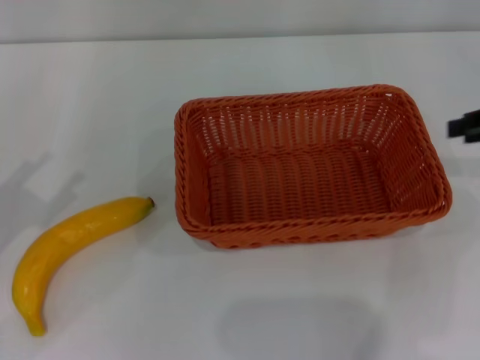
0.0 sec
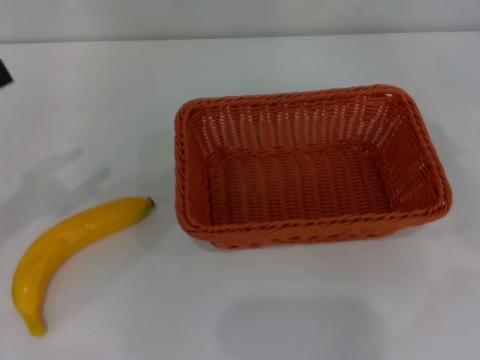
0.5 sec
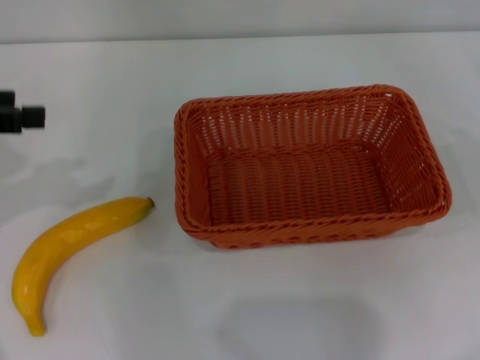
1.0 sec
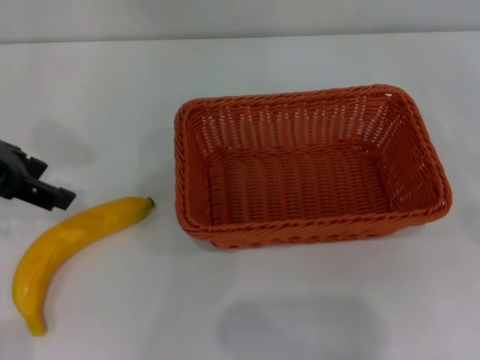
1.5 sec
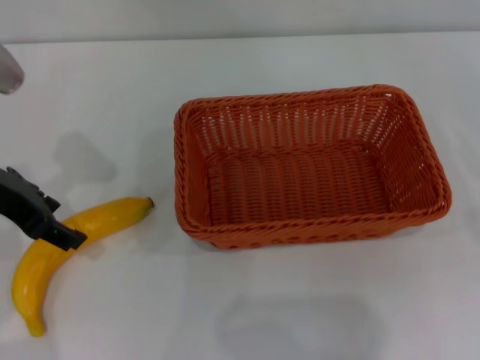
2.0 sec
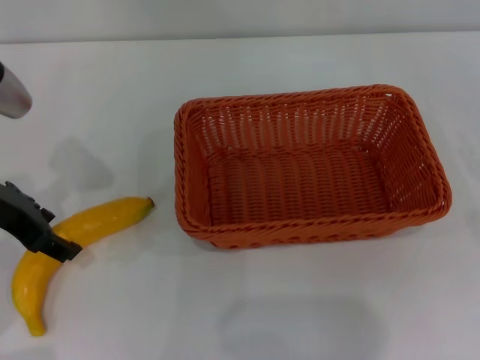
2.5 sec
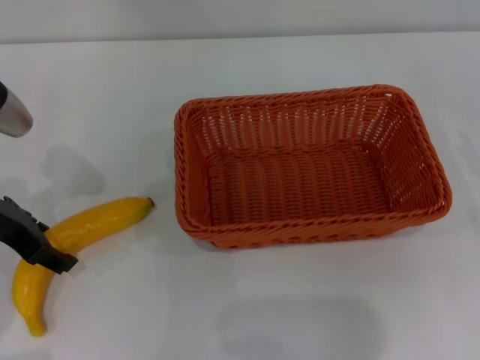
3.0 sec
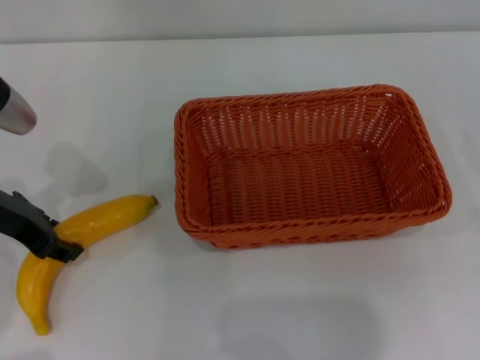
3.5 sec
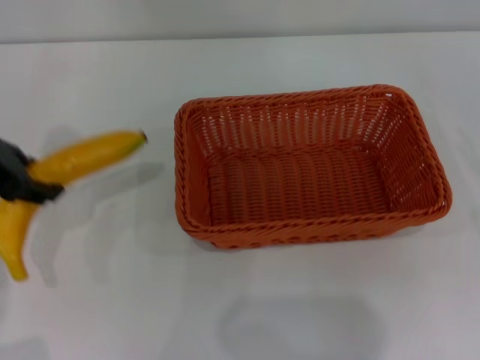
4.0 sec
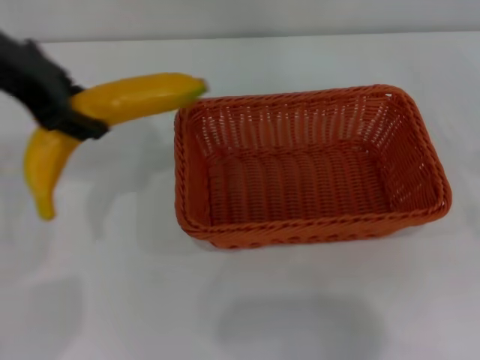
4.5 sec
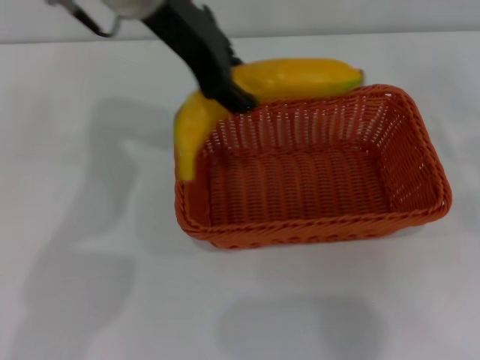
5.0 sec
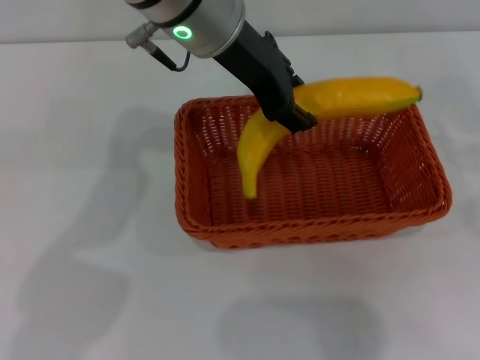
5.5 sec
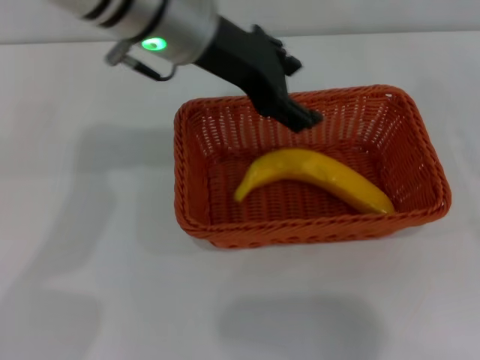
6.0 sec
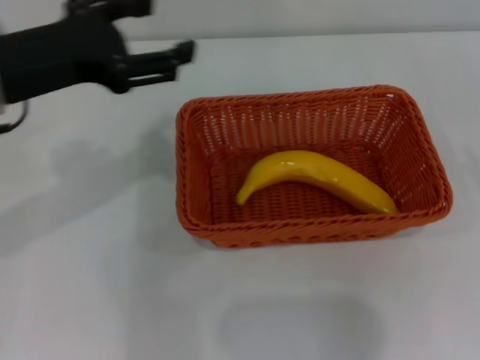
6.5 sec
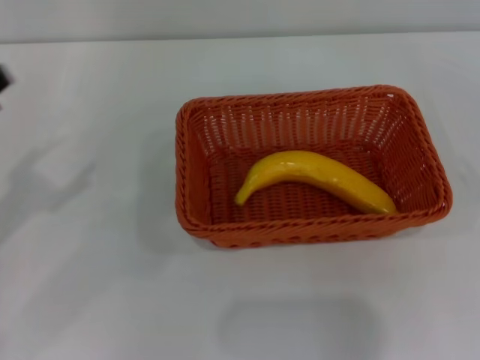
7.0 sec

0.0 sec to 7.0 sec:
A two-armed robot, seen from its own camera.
Step, 0.0 sec to 3.5 sec: Pick up the banana with the left gripper.
Step, 4.0 sec to 5.5 sec: Place the banana into the light basket with the left gripper.
0.0 sec to 2.0 sec: The left gripper heads forward, to the right and upward, covering roughly 15 cm.
2.0 sec to 3.5 sec: There are only small adjustments of the grippers.
3.5 sec to 5.0 sec: The left gripper travels to the right and upward by about 25 cm, and closes up.
5.0 sec to 7.0 sec: The left gripper is displaced to the left, backward and downward by about 35 cm, and opens, while the right gripper heads backward and downward, covering about 10 cm.

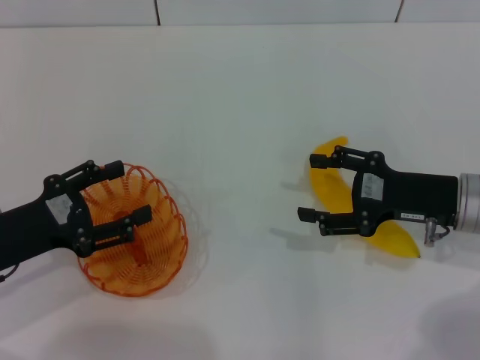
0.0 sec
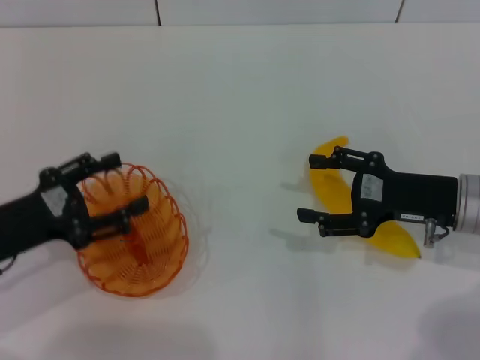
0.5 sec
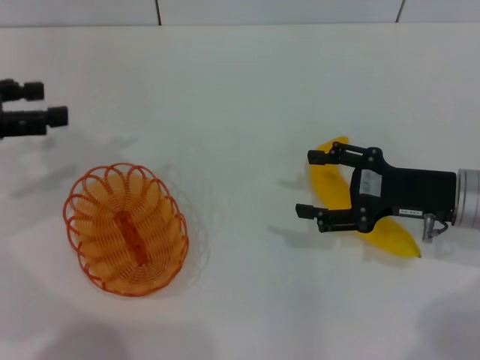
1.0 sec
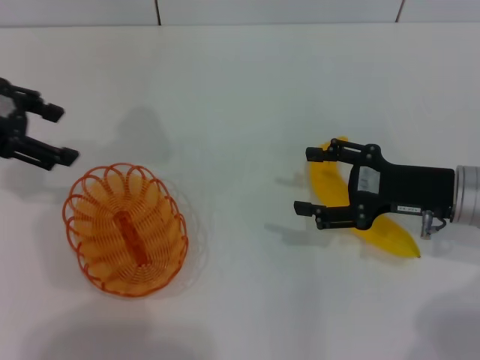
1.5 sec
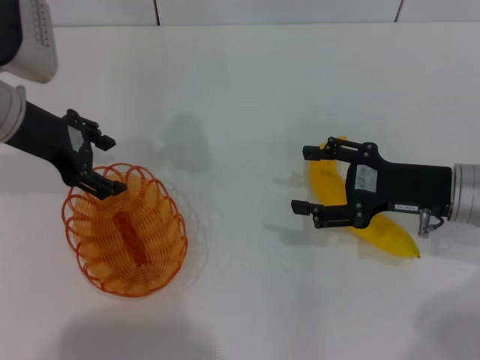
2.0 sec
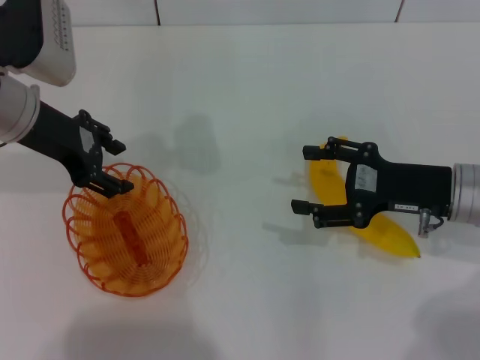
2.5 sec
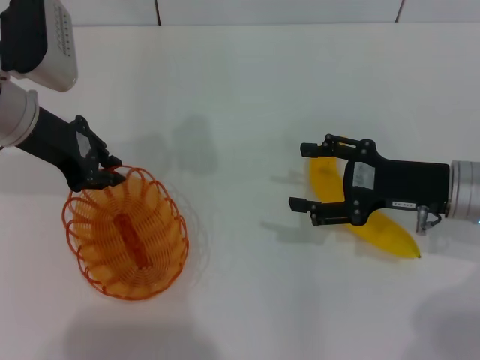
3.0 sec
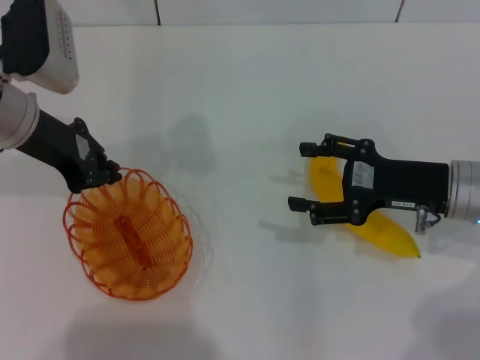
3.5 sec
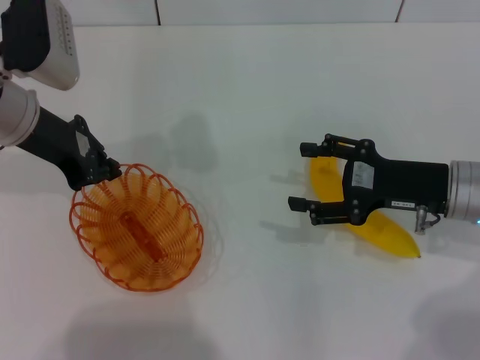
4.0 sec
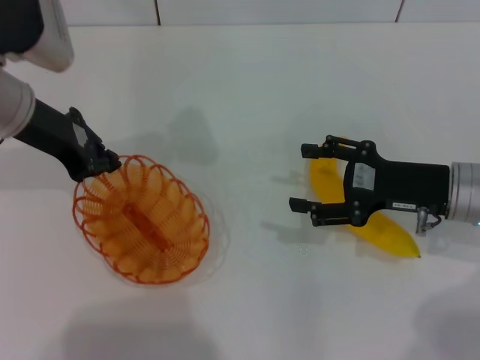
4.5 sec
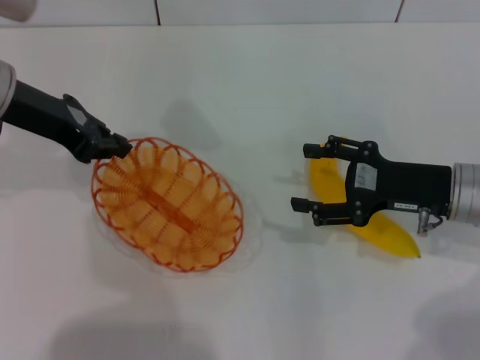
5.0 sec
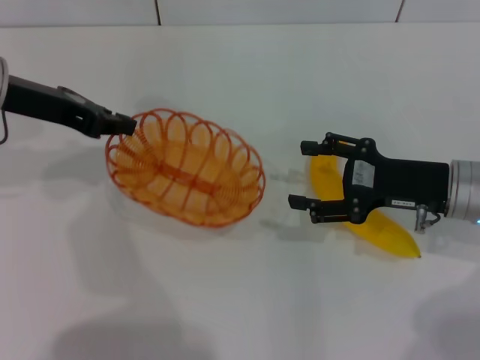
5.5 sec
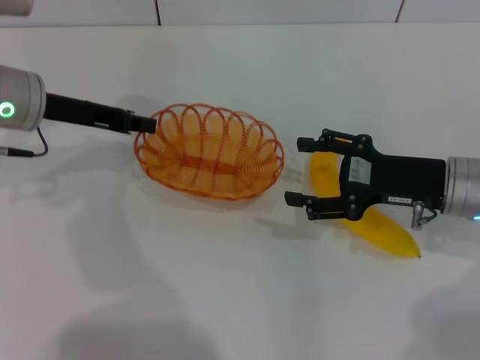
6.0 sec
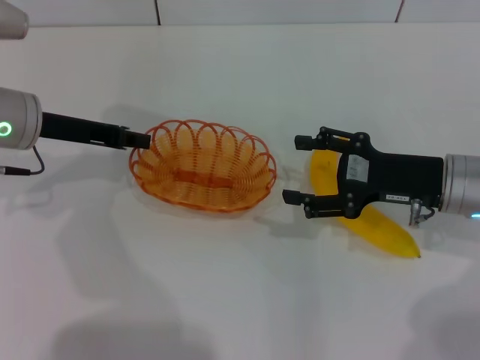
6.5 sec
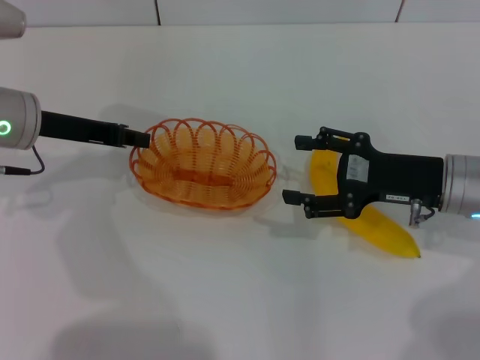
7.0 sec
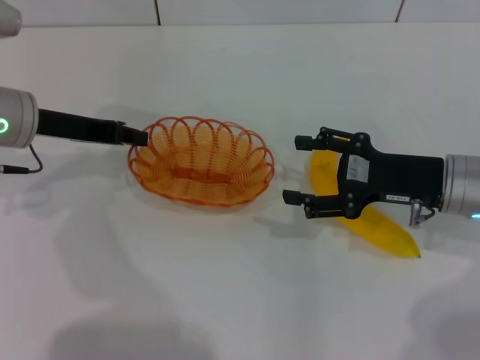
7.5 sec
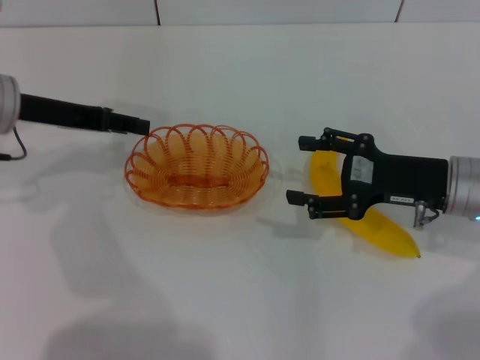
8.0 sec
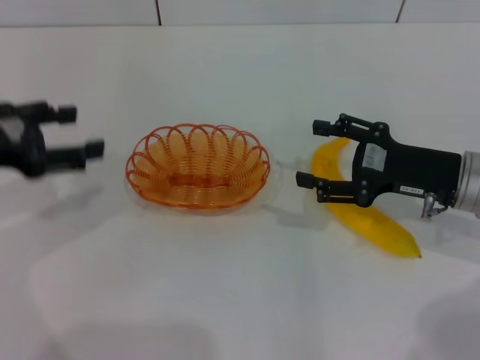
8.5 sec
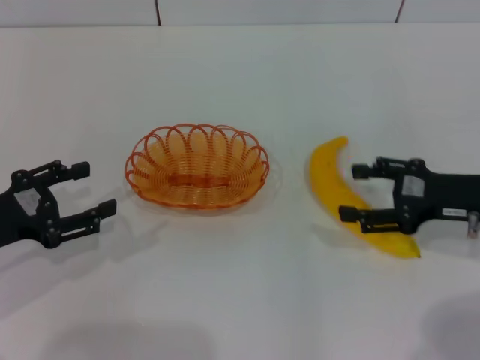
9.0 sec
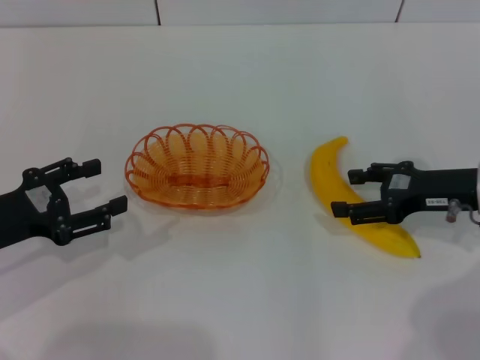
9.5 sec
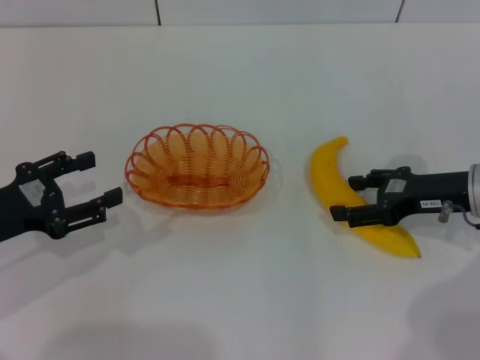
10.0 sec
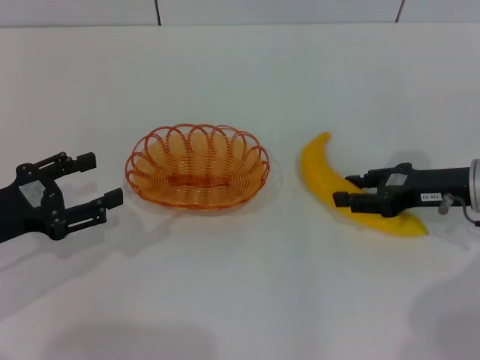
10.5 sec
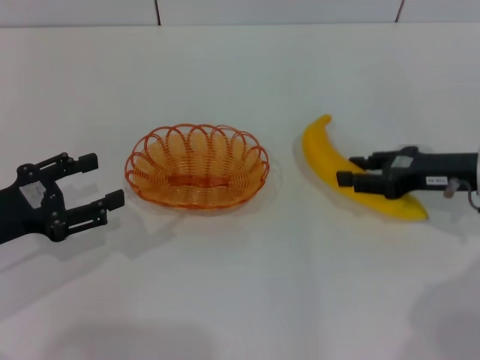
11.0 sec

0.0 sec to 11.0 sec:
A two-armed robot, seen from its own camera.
Step, 0.0 sec to 4.5 sec: Pick up the basket with the left gripper.
Step, 5.0 sec to 8.0 sec: Place the basket in the center of view with the left gripper.
Step, 8.5 sec to 11.0 sec: Pick up the banana with the right gripper.
0.0 sec to 2.0 sec: The left gripper travels forward and upward by approximately 15 cm.
2.0 sec to 3.5 sec: The left gripper closes up.
5.5 sec to 7.5 sec: The left gripper shifts approximately 5 cm downward.
7.5 sec to 9.0 sec: The left gripper moves backward, to the left and downward, some 15 cm, and opens its fingers. Meanwhile the right gripper travels to the right by about 5 cm.
9.0 sec to 11.0 sec: The right gripper closes.

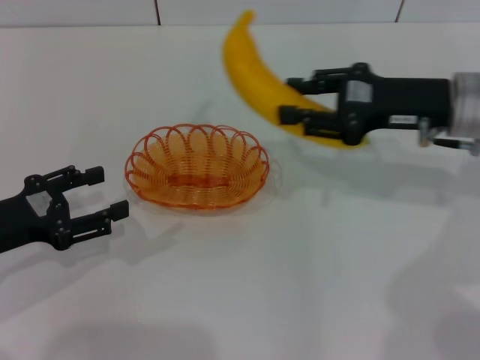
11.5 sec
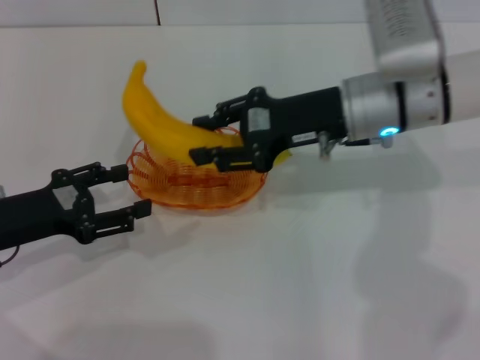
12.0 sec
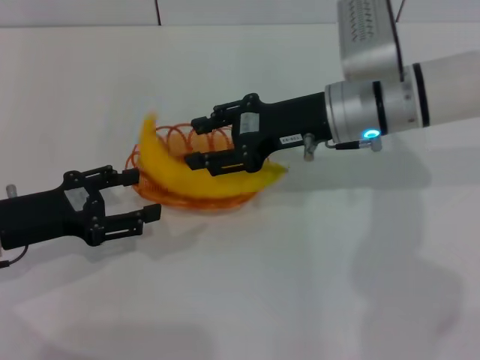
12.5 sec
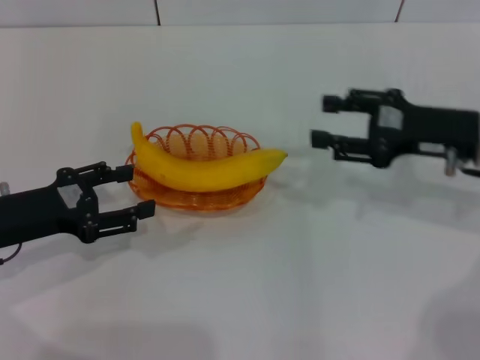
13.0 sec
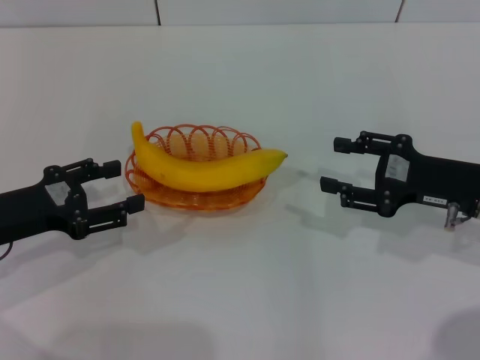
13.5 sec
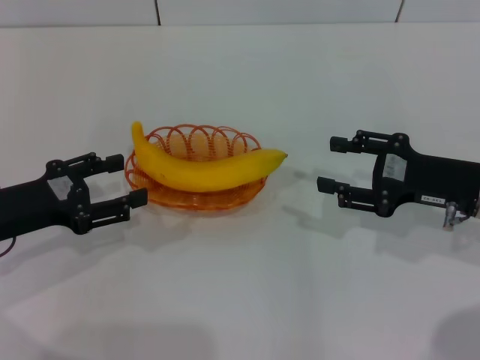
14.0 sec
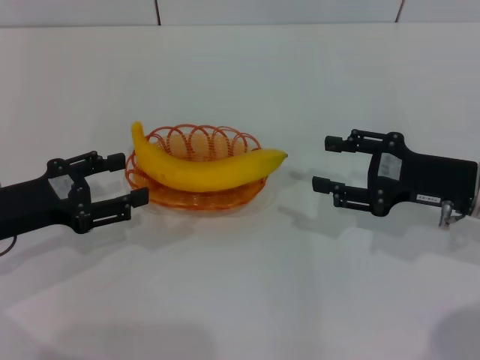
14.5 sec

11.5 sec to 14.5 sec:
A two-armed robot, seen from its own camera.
Step, 11.5 sec to 12.5 sec: Place the banana into the basket with the right gripper.
11.5 sec to 13.0 sec: The right gripper reaches approximately 10 cm to the left, then returns, and opens.
13.0 sec to 14.5 sec: The right gripper moves roughly 5 cm.
